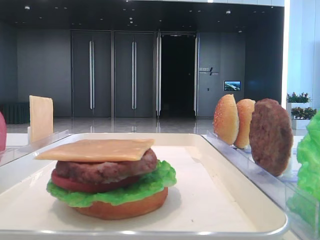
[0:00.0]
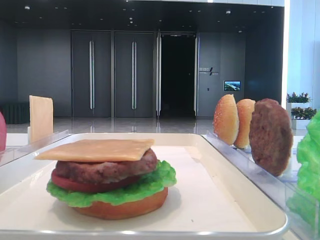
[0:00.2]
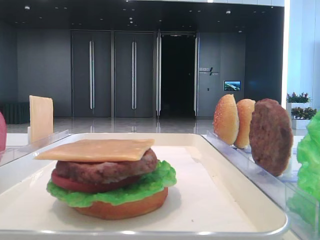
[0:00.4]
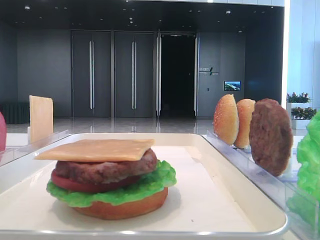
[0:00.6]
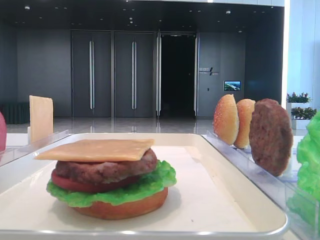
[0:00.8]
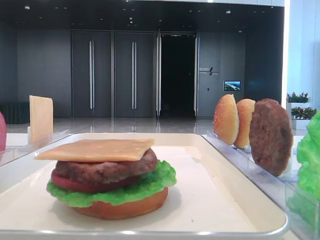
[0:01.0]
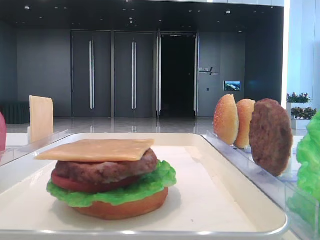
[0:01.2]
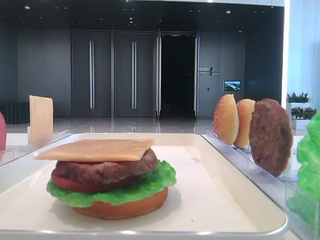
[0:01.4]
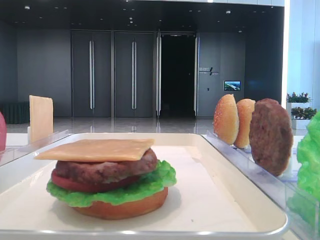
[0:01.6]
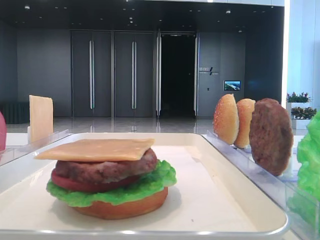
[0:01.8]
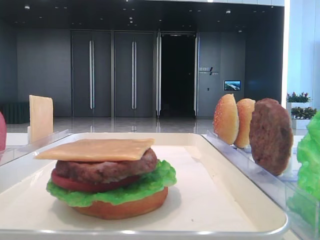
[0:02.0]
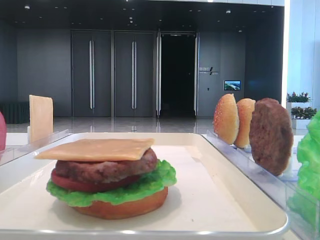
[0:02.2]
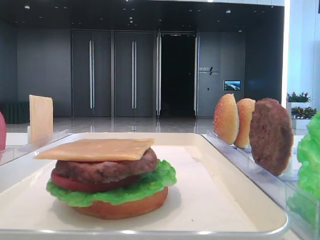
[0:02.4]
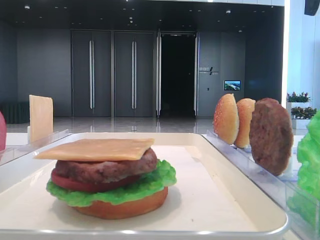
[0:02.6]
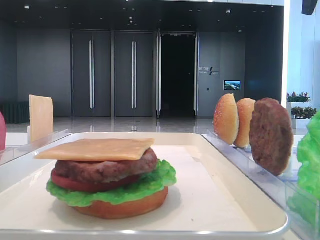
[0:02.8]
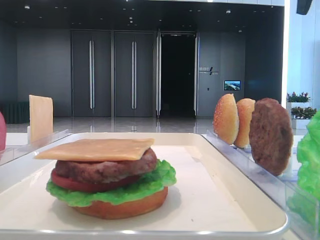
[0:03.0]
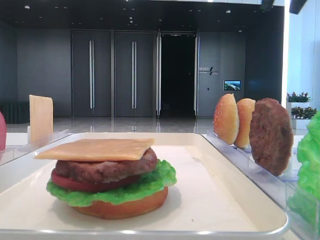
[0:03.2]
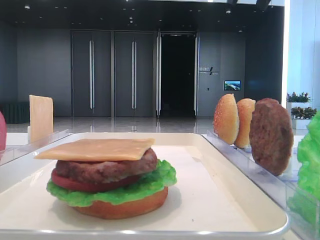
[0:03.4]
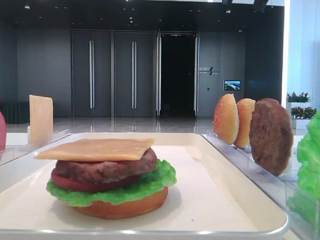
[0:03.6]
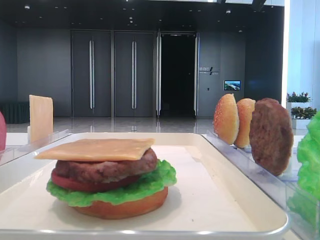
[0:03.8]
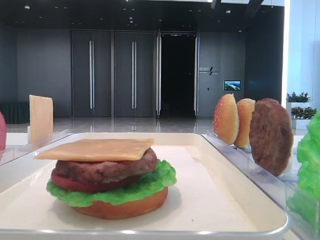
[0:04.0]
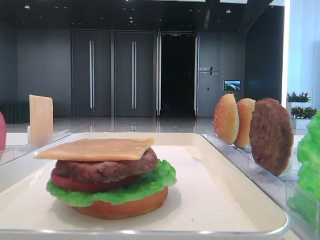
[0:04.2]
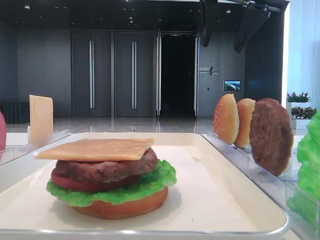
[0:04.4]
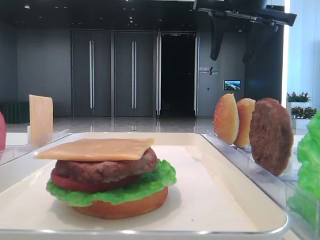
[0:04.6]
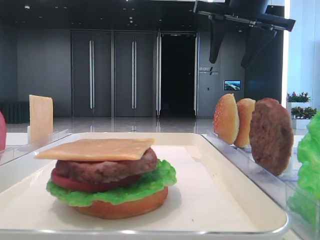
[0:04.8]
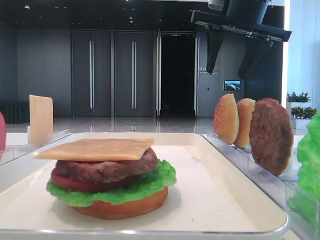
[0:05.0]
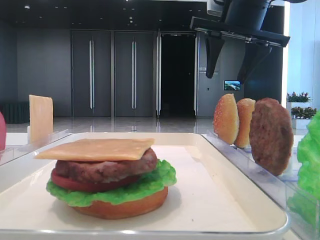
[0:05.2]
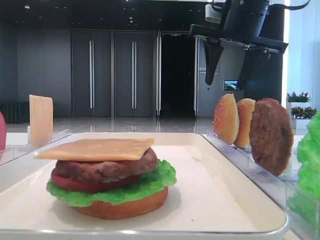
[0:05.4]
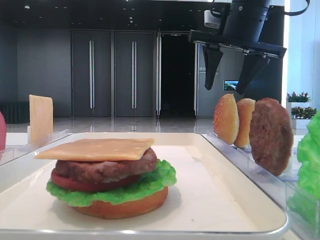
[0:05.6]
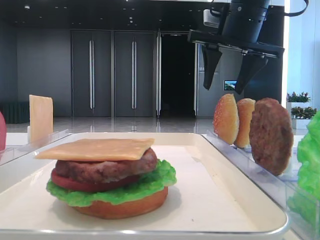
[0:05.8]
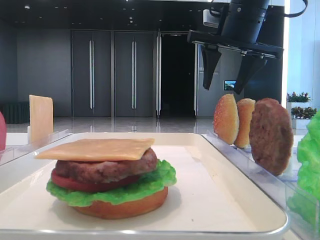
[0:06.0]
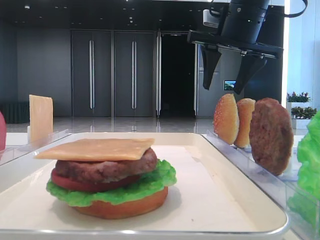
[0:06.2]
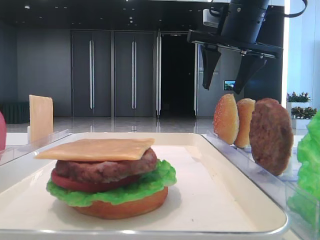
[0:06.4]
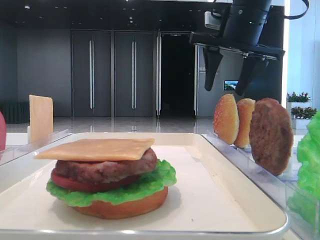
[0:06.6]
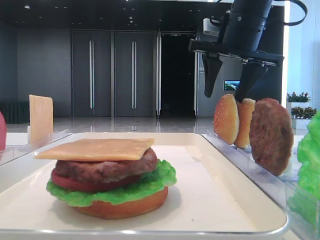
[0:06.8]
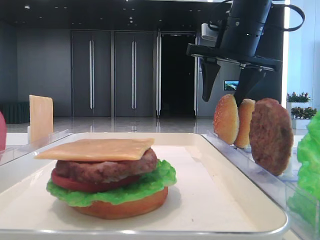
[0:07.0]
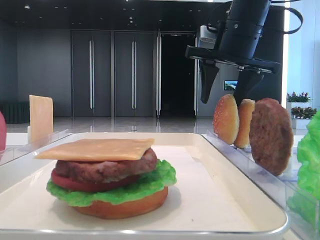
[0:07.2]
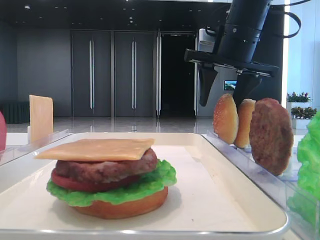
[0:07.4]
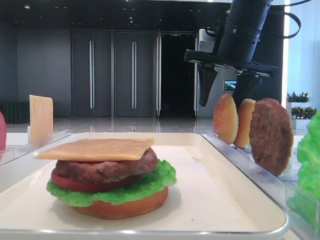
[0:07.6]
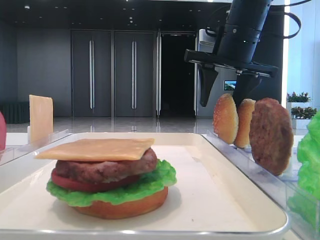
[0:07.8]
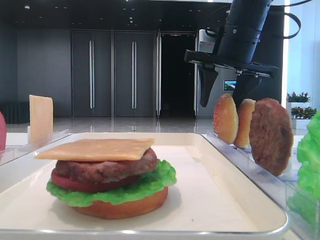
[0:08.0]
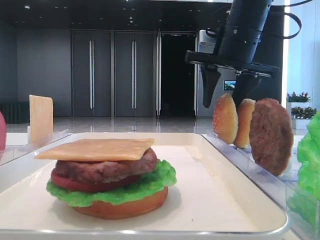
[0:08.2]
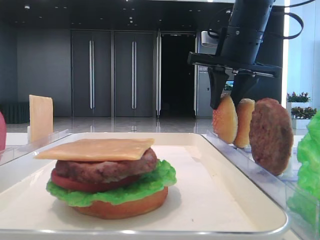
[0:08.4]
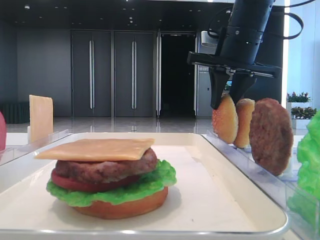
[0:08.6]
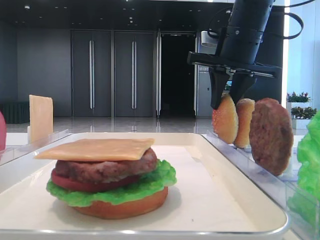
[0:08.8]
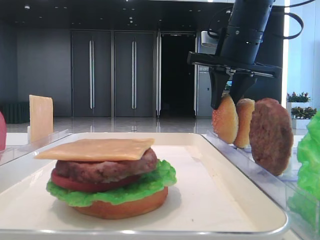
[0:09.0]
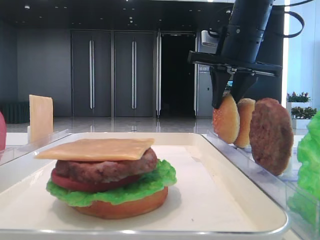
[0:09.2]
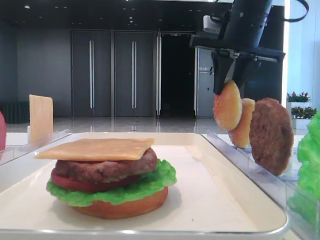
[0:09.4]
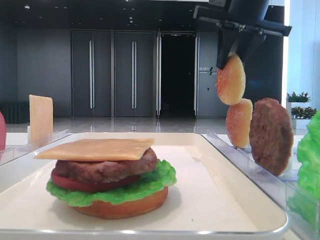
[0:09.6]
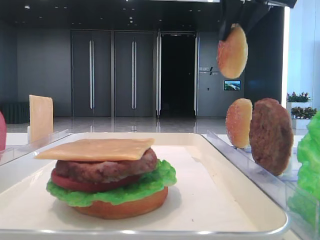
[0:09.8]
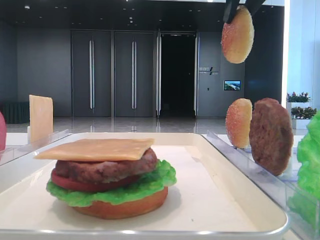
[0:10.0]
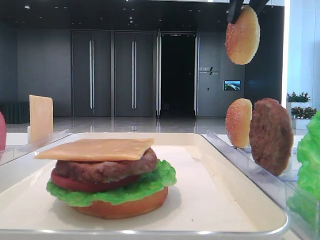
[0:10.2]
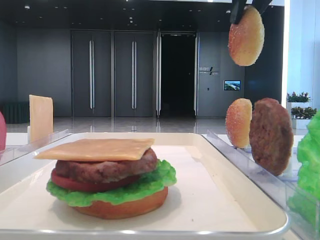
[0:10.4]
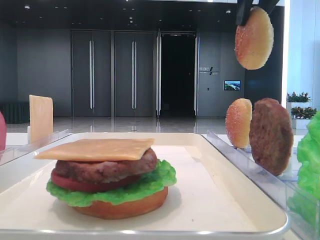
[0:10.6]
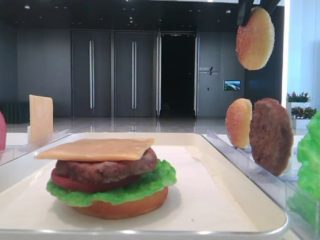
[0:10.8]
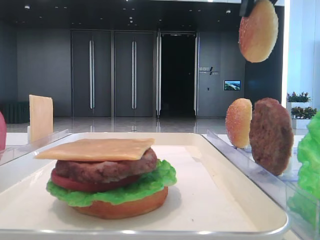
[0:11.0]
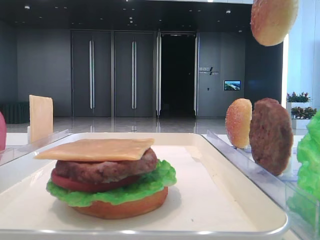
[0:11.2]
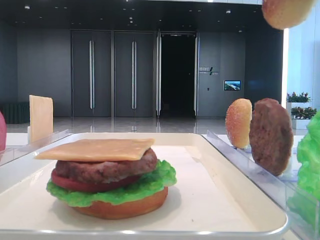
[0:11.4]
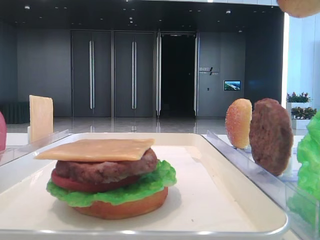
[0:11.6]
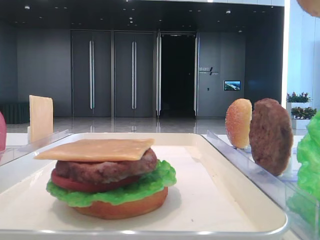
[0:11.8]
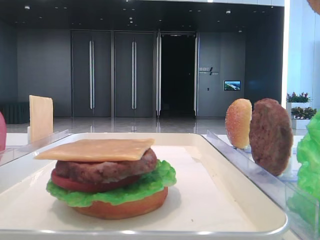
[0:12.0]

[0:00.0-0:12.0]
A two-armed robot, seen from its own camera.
Step, 0:00.0 to 0:09.0: Pick up the top bread slice with the right hand.
0:03.0 to 0:04.4: The right gripper moves to the left and downward, roughly 15 cm.
0:04.4 to 0:06.0: The right gripper shifts some 5 cm downward.
0:06.0 to 0:07.6: There are only small adjustments of the grippers.
0:07.6 to 0:09.0: The right gripper closes its fingers.
0:09.0 to 0:10.4: The right gripper goes some 15 cm upward and backward.
0:10.4 to 0:12.0: The right gripper shifts roughly 25 cm backward.

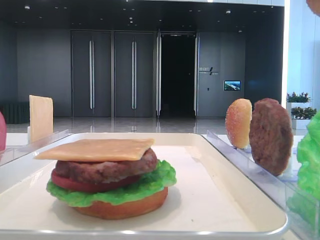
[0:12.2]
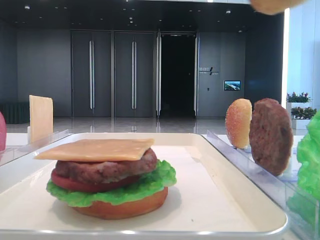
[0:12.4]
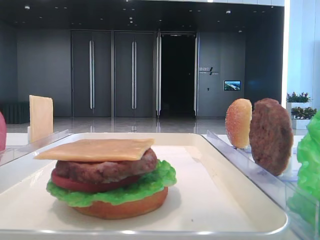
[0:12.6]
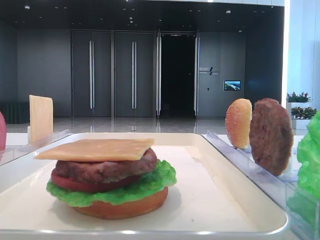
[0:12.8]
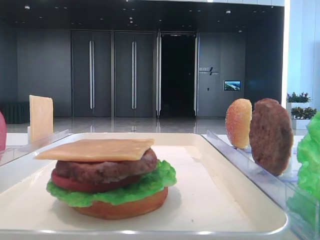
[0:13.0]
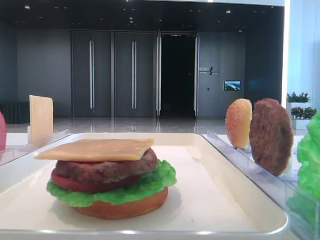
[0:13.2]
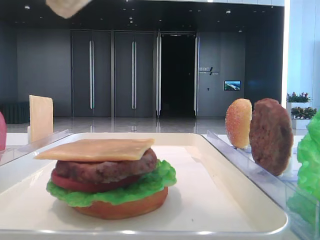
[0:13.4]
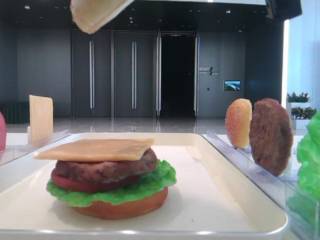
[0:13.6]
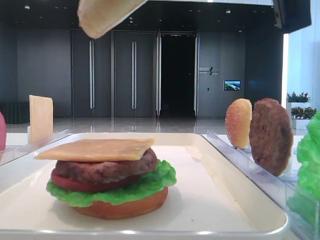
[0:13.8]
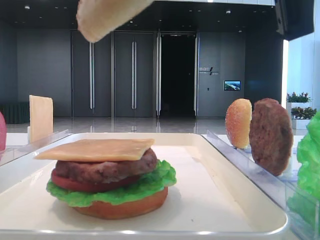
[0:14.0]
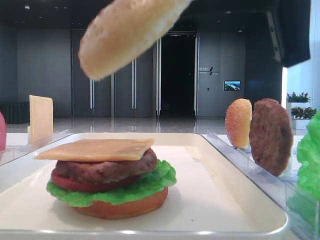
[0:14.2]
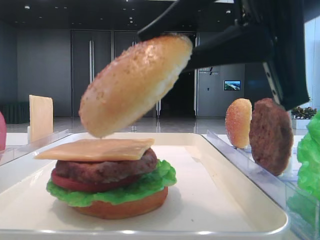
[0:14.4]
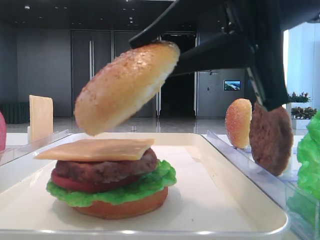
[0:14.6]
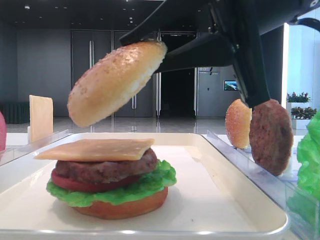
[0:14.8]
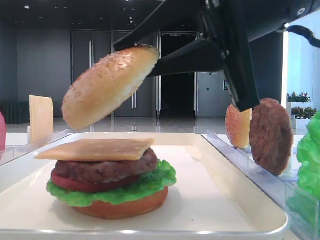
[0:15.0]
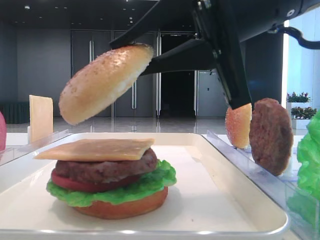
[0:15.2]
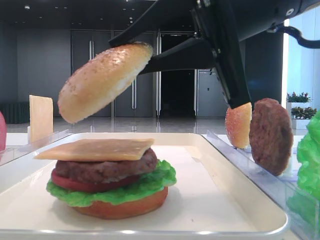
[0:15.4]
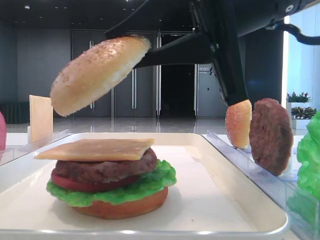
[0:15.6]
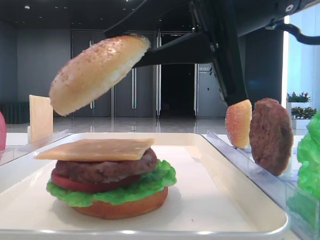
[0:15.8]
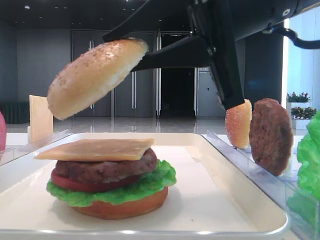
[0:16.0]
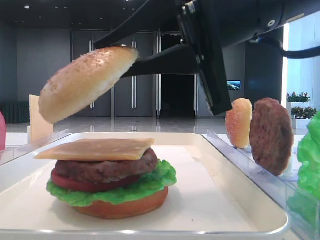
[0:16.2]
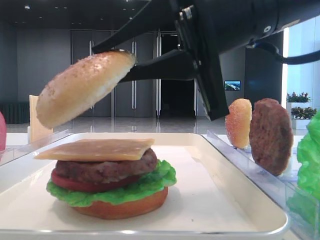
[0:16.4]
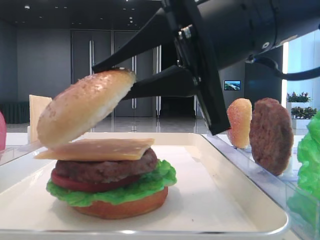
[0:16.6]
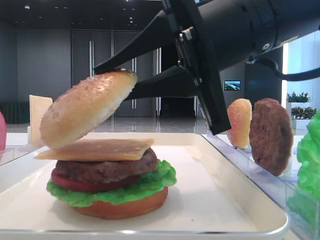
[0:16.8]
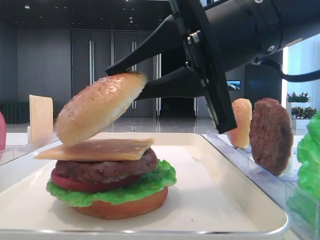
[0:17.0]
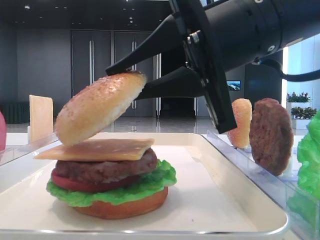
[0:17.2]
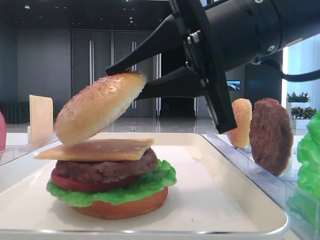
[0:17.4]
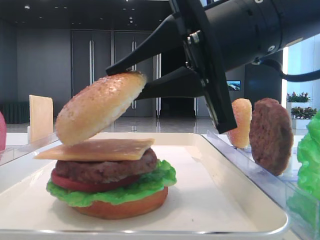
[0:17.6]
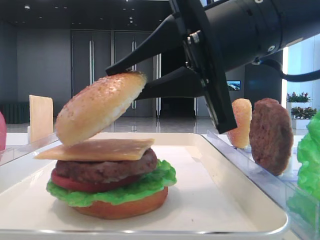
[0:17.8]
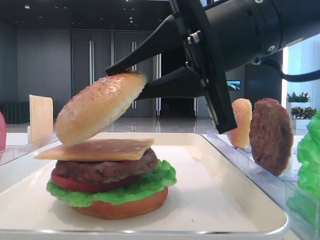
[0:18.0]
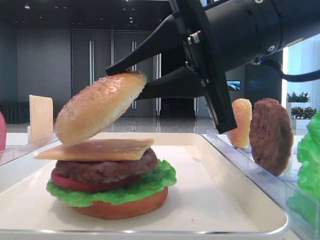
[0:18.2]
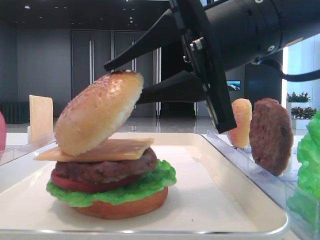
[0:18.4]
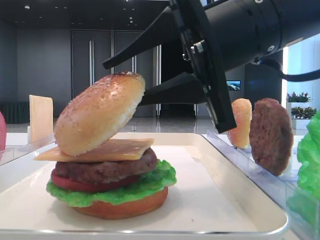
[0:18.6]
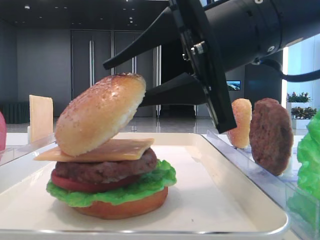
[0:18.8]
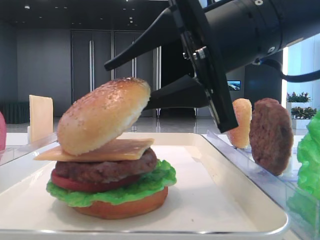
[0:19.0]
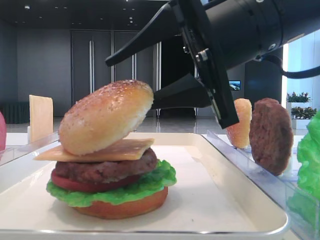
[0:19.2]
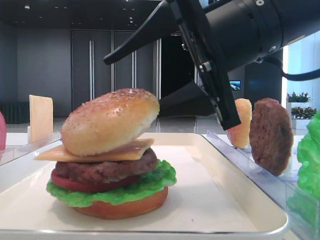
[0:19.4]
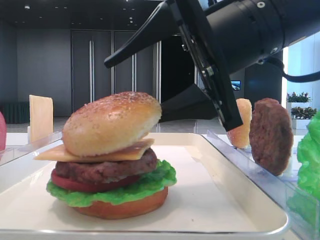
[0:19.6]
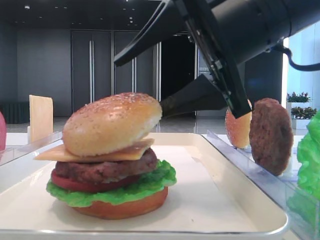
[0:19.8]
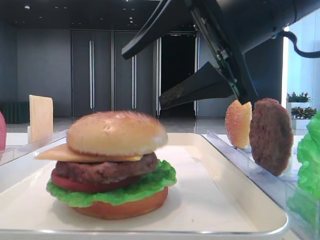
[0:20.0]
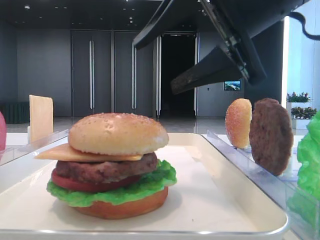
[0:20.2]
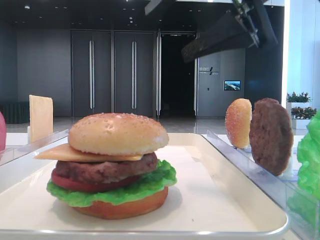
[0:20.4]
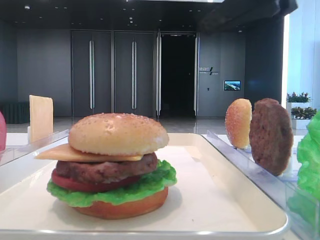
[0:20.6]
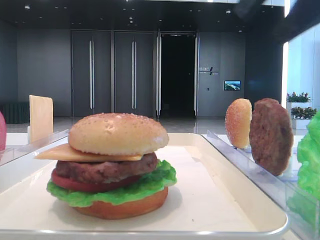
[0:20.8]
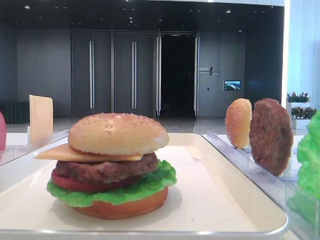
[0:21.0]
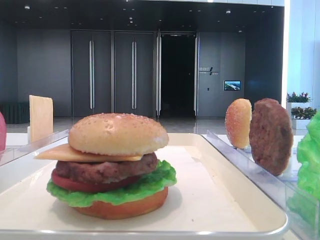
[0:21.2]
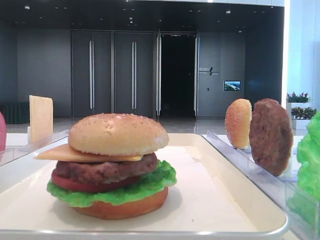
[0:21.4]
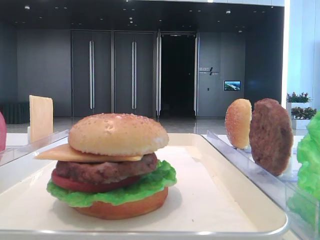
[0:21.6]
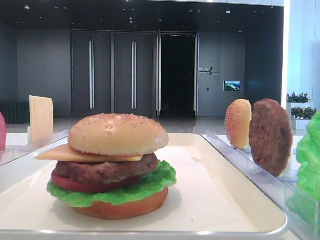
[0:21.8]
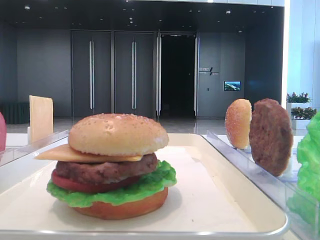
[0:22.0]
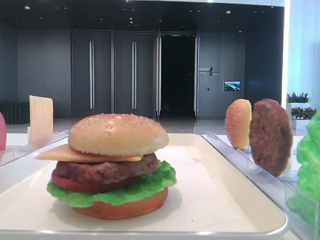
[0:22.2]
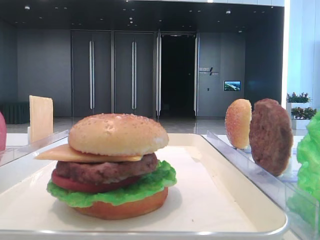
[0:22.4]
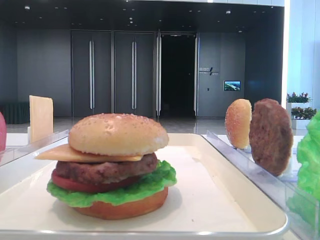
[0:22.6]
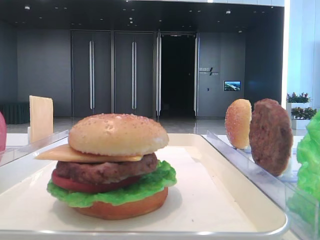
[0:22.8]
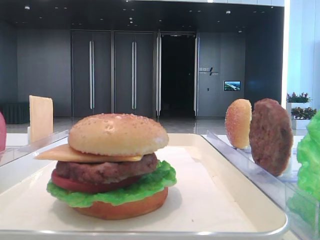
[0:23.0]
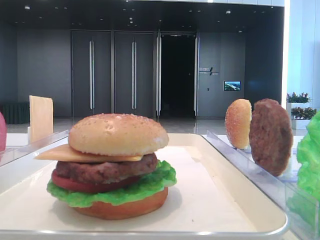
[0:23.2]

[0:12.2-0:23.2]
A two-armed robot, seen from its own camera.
Step, 0:12.2 to 0:19.8: Place the top bread slice on the cheese with the right hand.
0:12.2 to 0:13.8: The right gripper goes about 10 cm downward.
0:13.8 to 0:15.4: The right gripper is displaced forward and downward by some 5 cm.
0:15.4 to 0:17.0: There are only small adjustments of the grippers.
0:17.0 to 0:18.4: The two grippers keep their place.
0:18.4 to 0:20.0: The right gripper opens up.
0:20.0 to 0:21.6: The right gripper heads to the right, backward and upward, covering approximately 30 cm.
